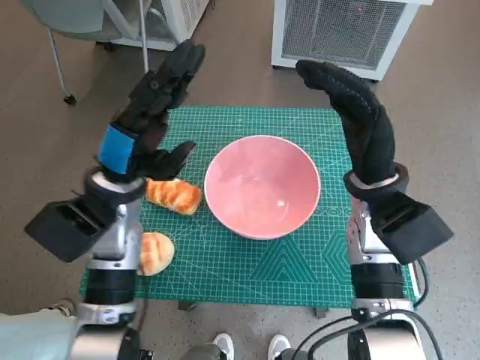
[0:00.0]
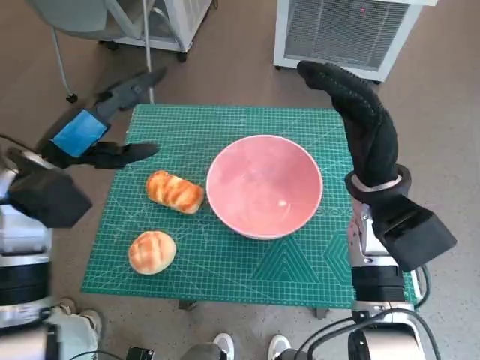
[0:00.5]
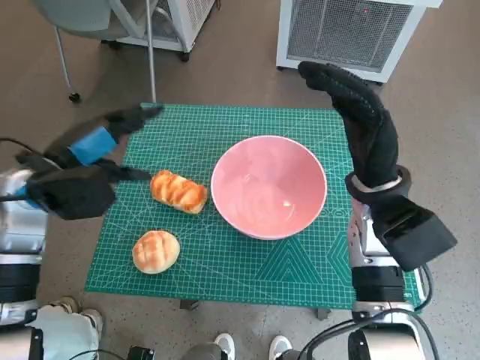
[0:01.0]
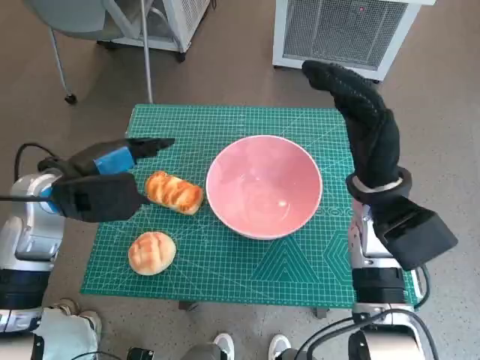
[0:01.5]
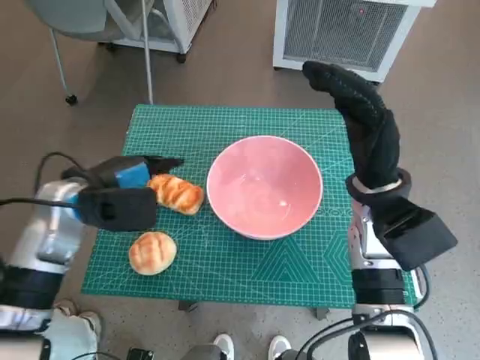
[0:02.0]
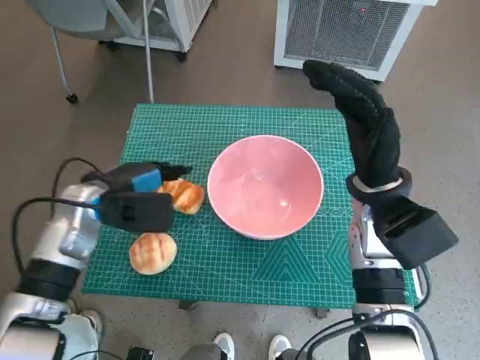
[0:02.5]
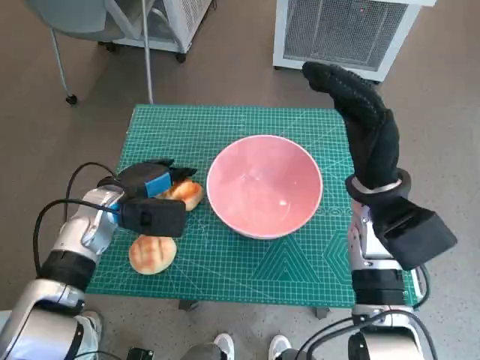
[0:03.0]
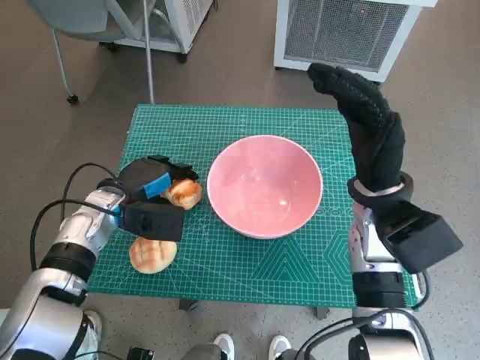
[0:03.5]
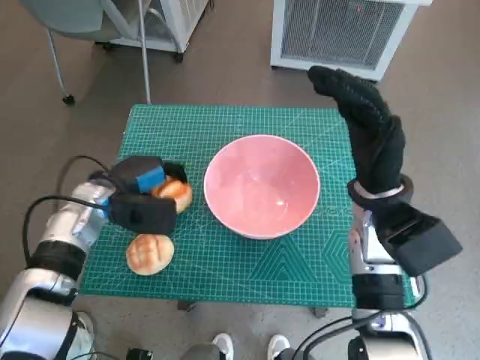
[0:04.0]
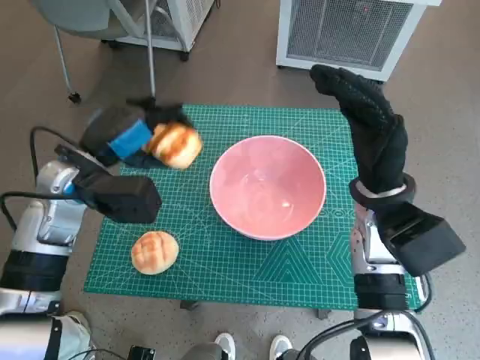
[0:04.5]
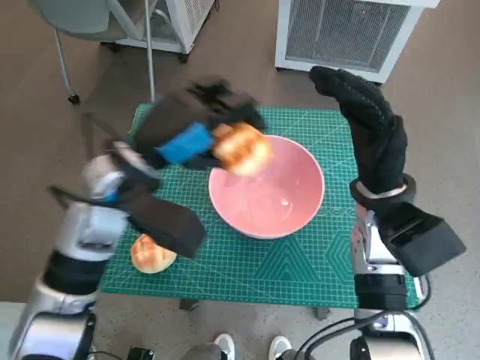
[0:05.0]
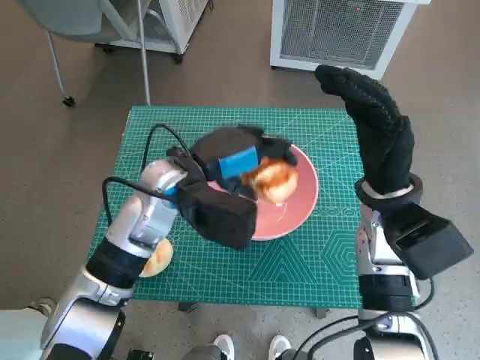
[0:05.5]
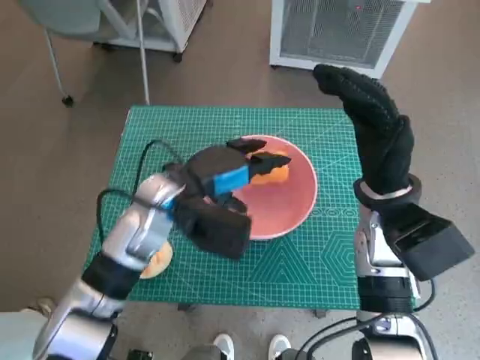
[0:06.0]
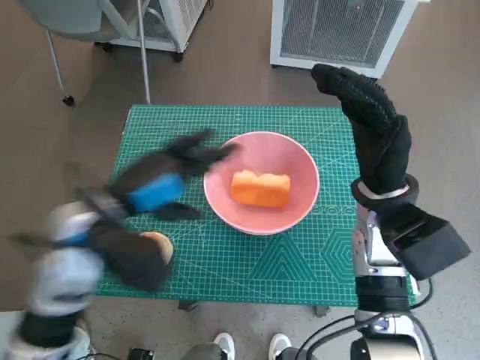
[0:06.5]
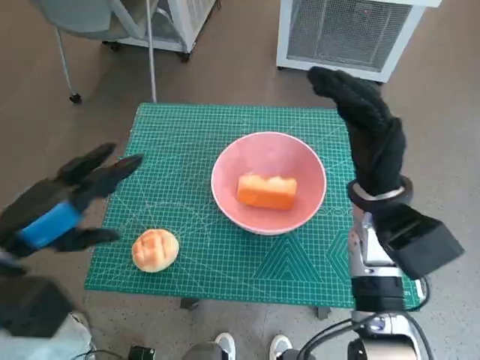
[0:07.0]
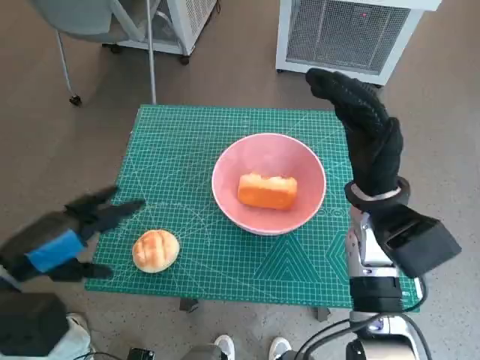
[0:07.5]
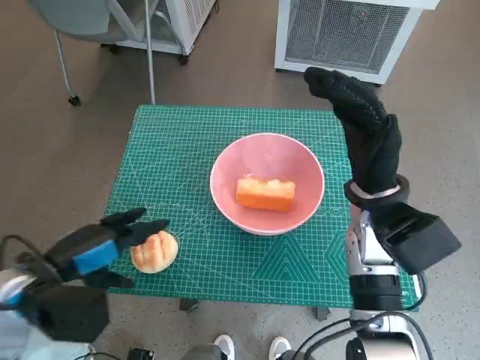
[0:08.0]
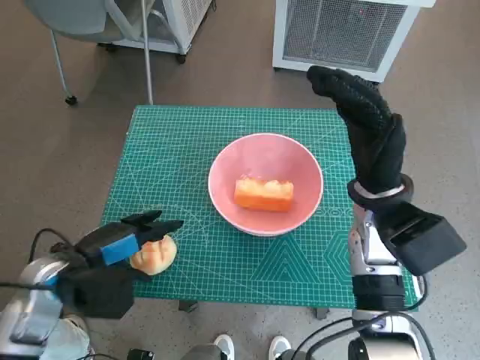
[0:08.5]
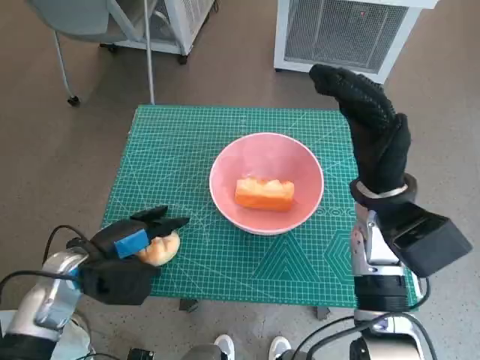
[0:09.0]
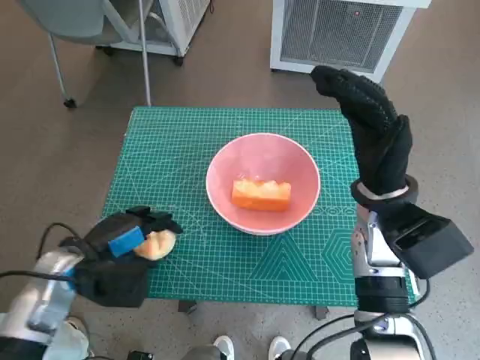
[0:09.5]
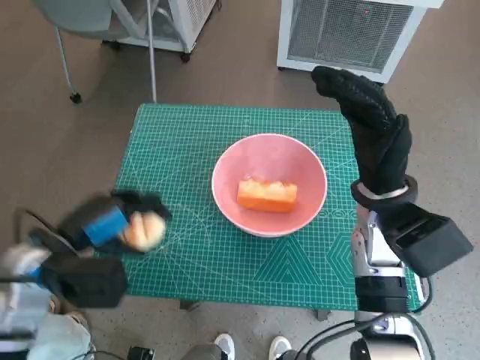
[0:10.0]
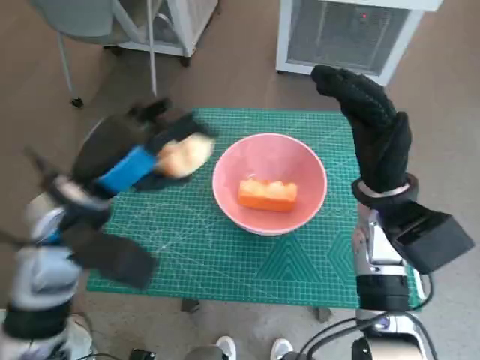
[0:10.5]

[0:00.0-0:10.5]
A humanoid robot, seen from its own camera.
Task of the whole recording: Push the bowl to the center of the table and put the bread into the bowl.
Step, 0:00.0 to 0:03.0: Grasp the long bread with left hand.
Step, 0:03.5 to 0:06.0: Place the long bread in pink bowl with left hand.
Step, 0:06.5 to 0:09.0: Grasp the round bread with left hand.
0:00.0 to 0:02.0: The left hand shifts about 5 cm to the left.
0:02.0 to 0:04.0: The left hand is displaced downward by roughly 5 cm.
0:04.0 to 0:06.5: The left hand moves upward, backward and to the right, some 10 cm.
0:06.5 to 0:08.5: The left hand moves to the left and downward, roughly 10 cm.
0:08.5 to 0:10.5: The left hand goes about 10 cm upward and to the right.
